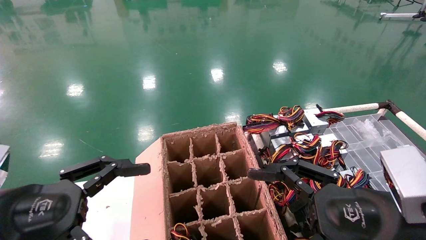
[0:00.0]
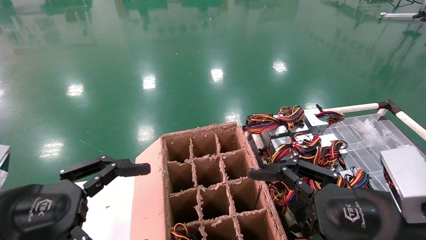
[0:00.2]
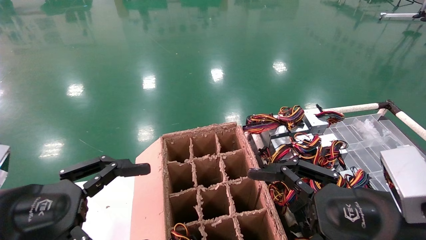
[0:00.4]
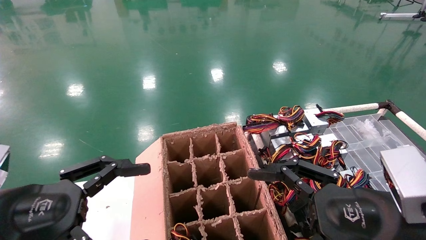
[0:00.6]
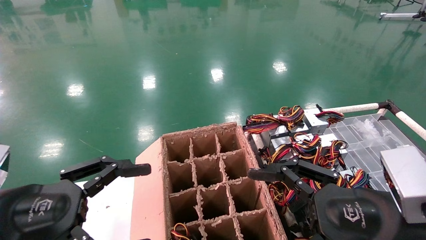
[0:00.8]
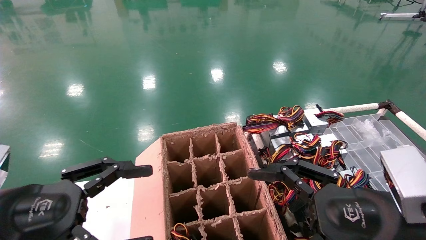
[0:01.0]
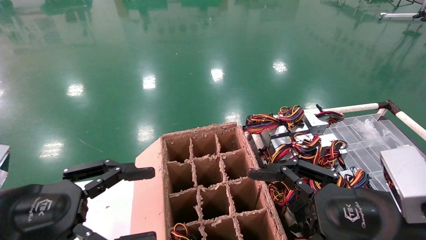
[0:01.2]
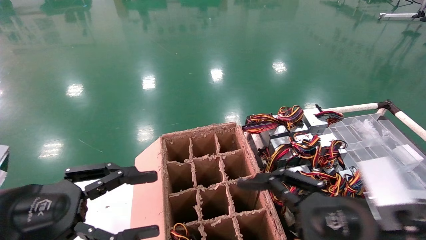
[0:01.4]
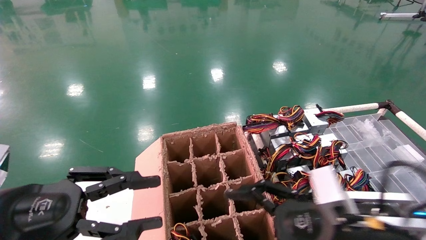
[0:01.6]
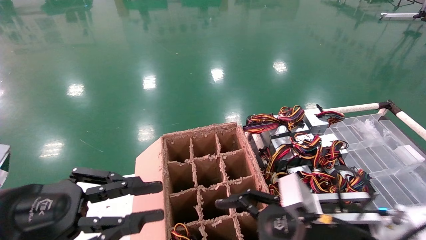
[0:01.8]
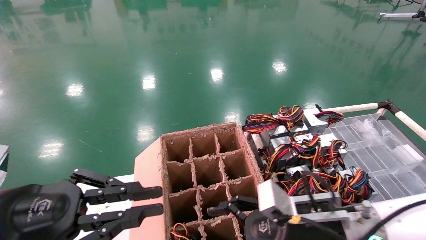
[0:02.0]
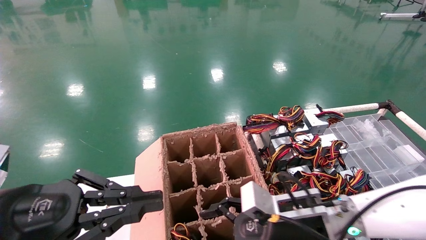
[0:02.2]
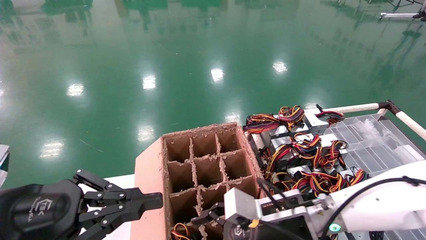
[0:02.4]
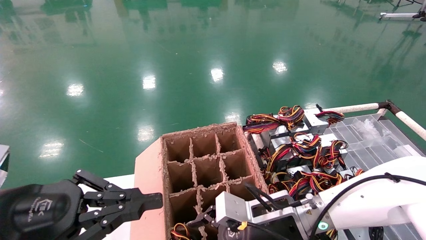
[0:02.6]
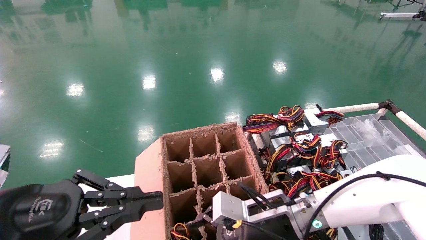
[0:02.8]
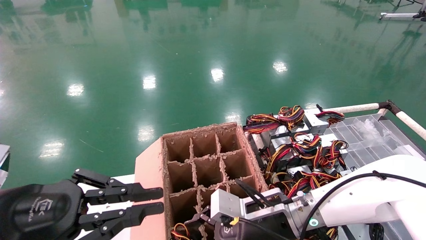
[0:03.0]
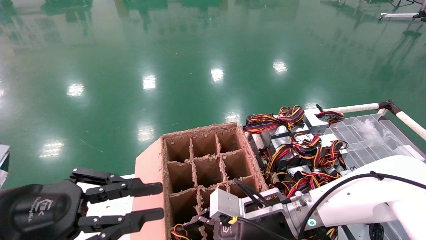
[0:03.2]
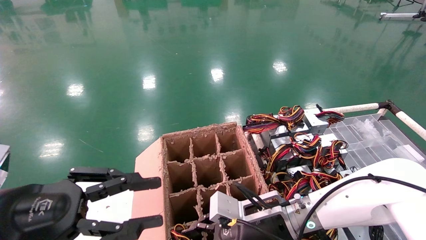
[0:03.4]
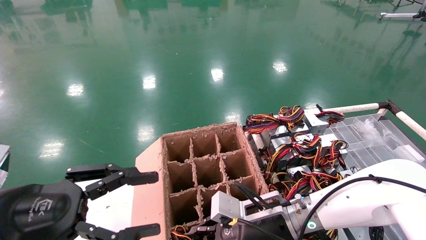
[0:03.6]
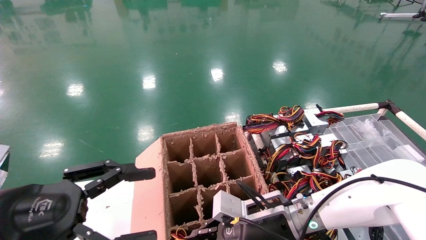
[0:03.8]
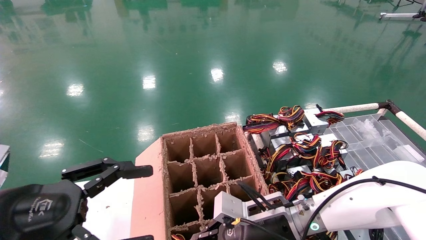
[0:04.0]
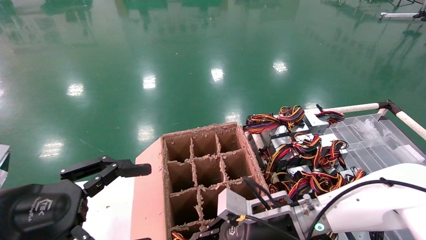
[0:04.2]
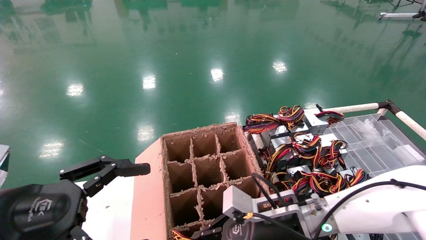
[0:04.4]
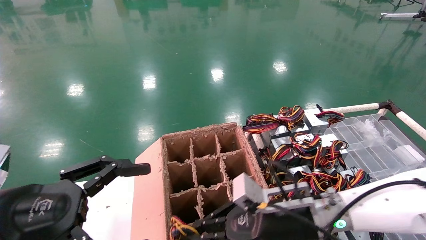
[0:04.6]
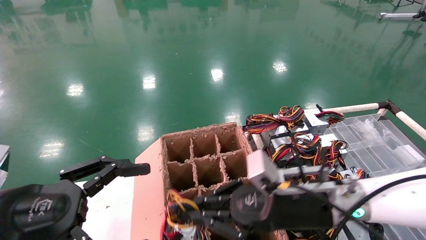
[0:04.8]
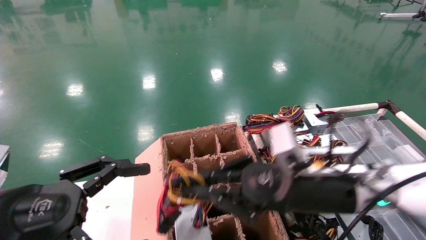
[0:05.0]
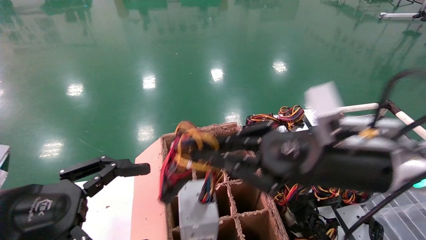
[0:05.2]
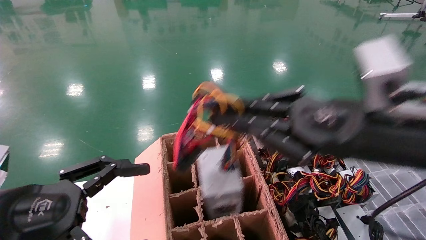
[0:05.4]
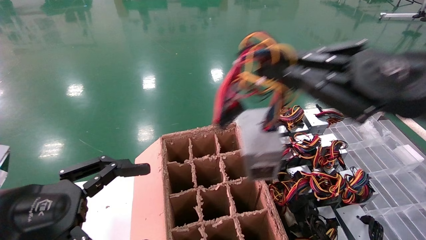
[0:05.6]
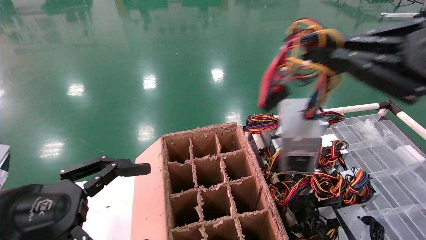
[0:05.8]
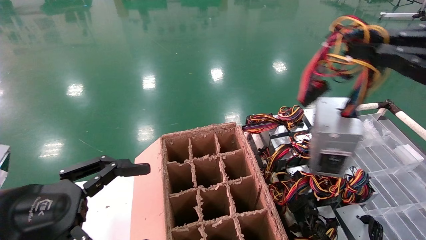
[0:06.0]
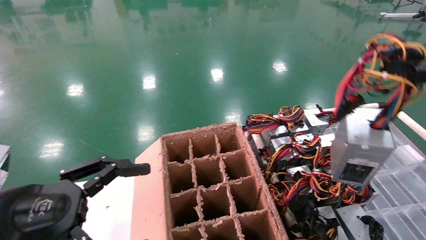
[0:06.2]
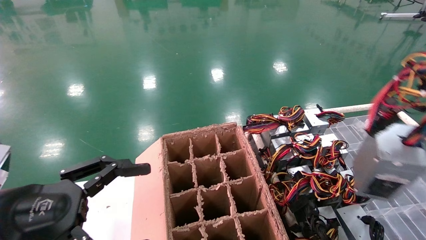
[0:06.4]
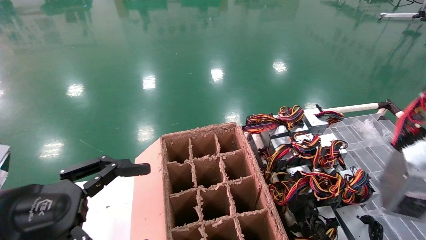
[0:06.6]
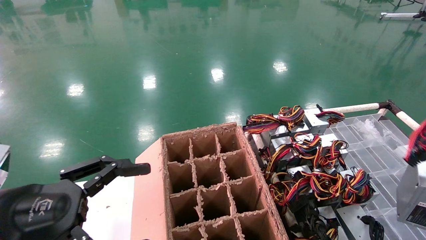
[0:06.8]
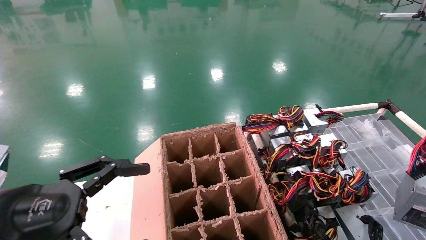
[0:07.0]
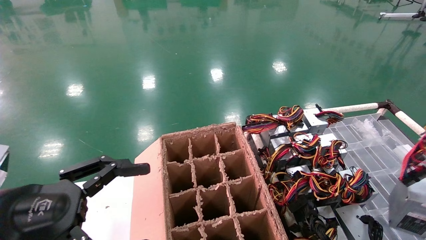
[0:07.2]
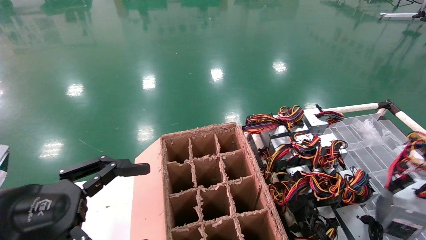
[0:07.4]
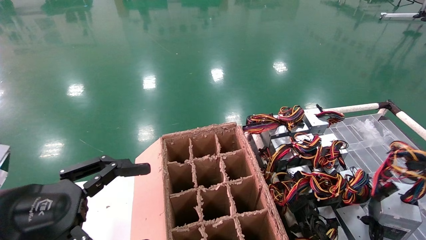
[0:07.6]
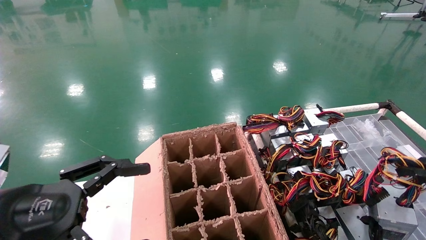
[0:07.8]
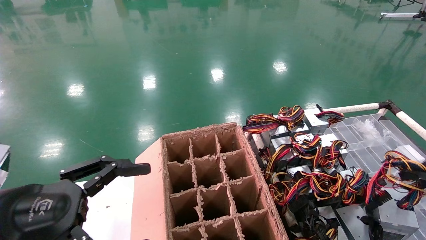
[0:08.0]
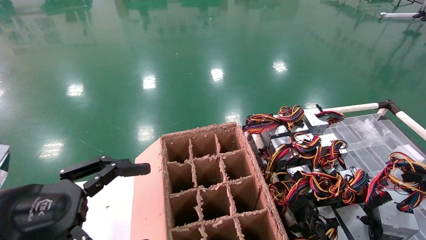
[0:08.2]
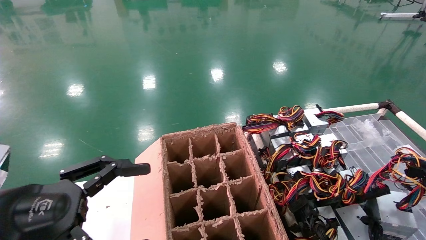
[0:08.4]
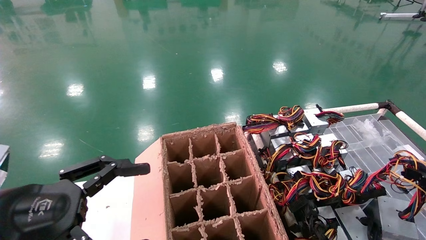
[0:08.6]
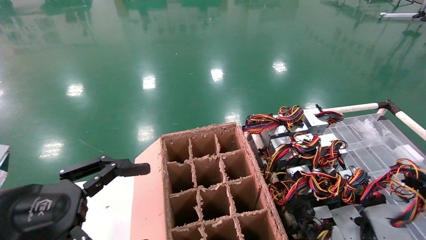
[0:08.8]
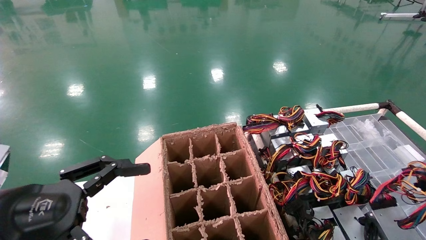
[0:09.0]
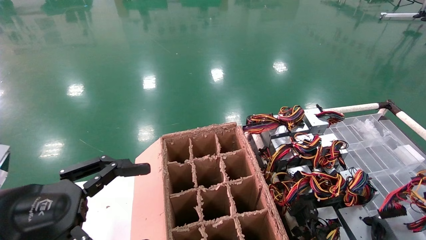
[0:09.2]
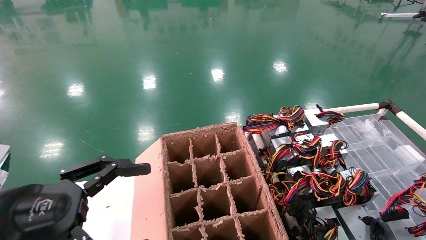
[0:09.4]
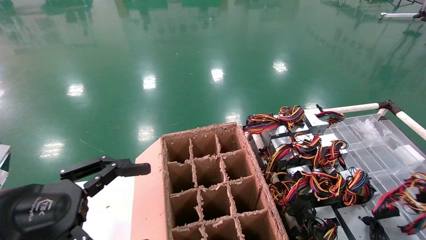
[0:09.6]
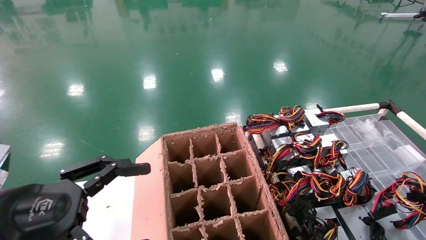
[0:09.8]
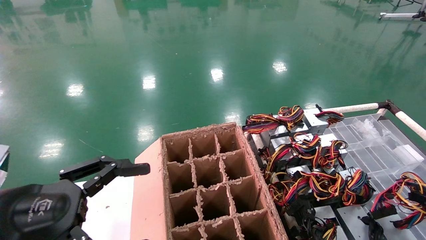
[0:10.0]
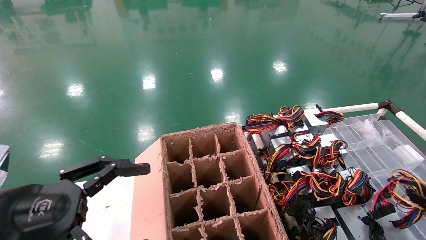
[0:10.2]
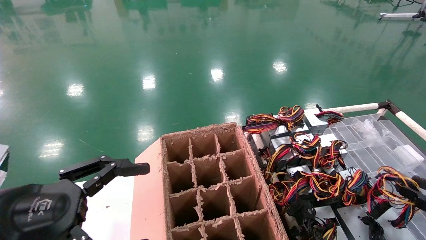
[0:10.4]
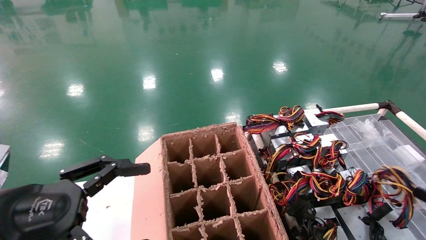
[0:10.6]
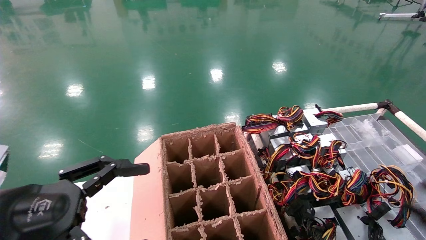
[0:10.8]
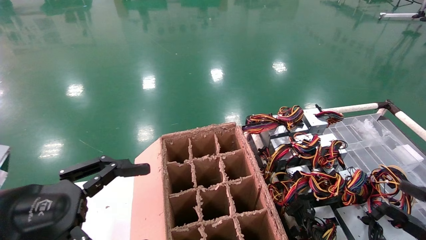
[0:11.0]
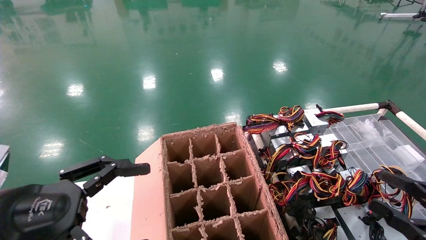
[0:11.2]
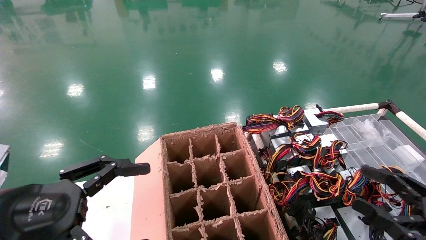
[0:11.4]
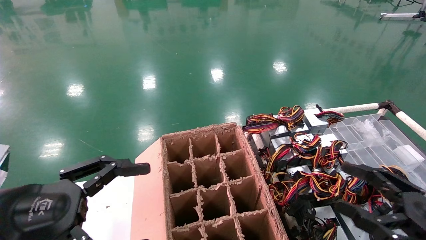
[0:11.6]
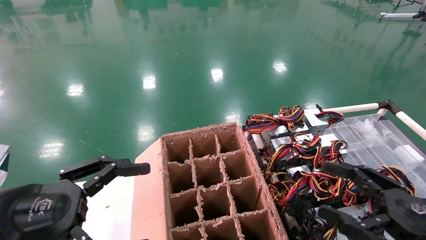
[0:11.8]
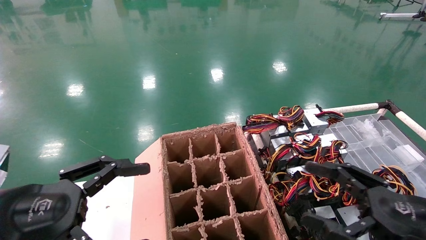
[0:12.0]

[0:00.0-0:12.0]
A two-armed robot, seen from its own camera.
Step, 0:02.4 to 0:04.2: Grab and lift the power supply from the large box.
Step, 0:04.4 to 0:10.0: Place the power supply on the operating table.
0:00.0 to 0:01.6: The left gripper closes, while the right gripper travels forward by some 5 cm.
0:01.6 to 0:03.0: The left gripper closes its fingers. Meanwhile the right gripper moves to the left and forward, approximately 15 cm.
0:03.0 to 0:04.4: The left gripper opens its fingers; the right gripper closes.
0:04.4 to 0:06.0: The right gripper moves upward, to the right and backward, approximately 40 cm.
0:06.0 to 0:07.6: The right gripper moves to the right and downward, roughly 15 cm.
0:07.6 to 0:09.0: The right gripper moves downward, approximately 15 cm.
0:09.0 to 0:10.4: There are only small adjustments of the grippers.
0:10.4 to 0:12.0: The right gripper shifts some 20 cm to the left, and opens up.
